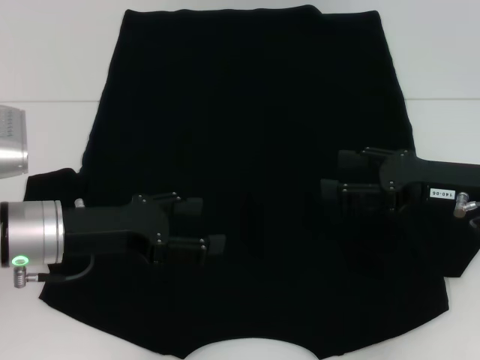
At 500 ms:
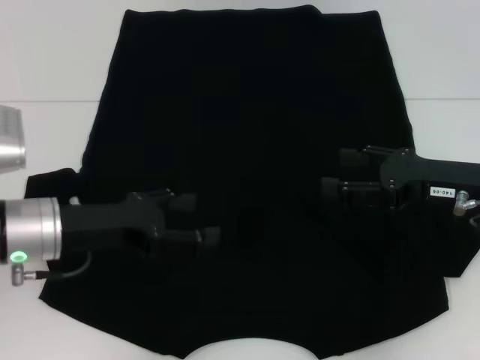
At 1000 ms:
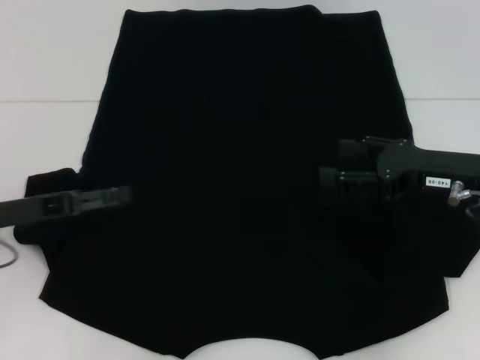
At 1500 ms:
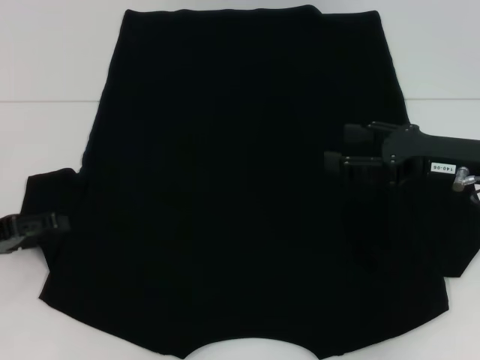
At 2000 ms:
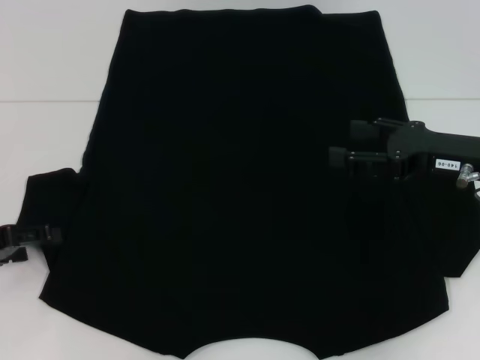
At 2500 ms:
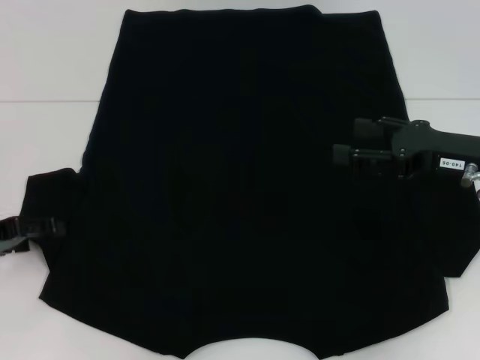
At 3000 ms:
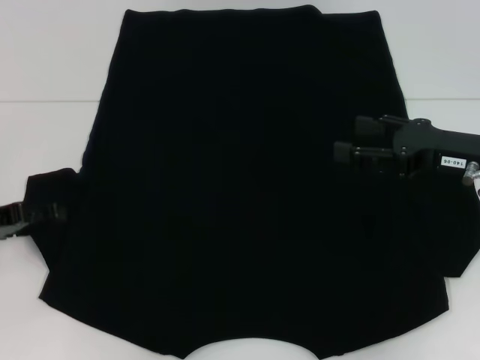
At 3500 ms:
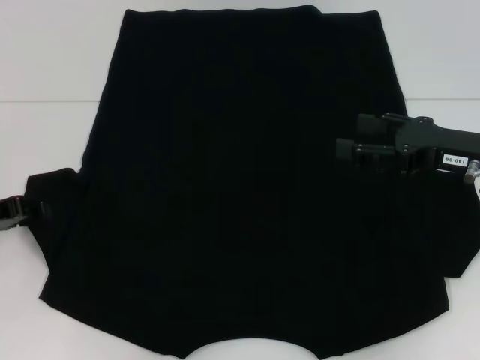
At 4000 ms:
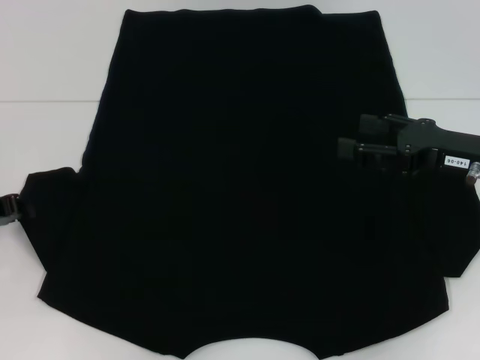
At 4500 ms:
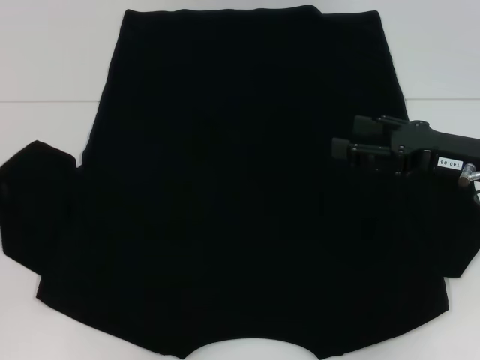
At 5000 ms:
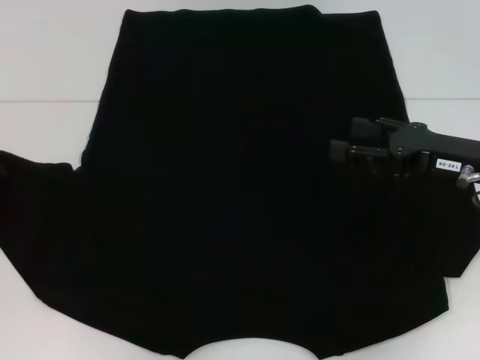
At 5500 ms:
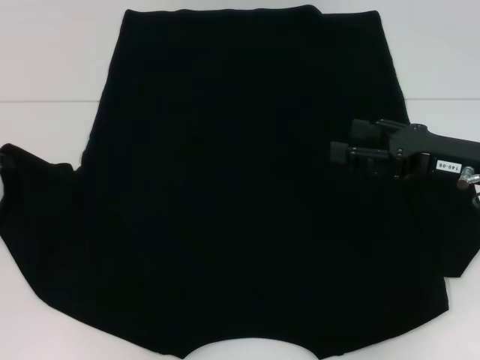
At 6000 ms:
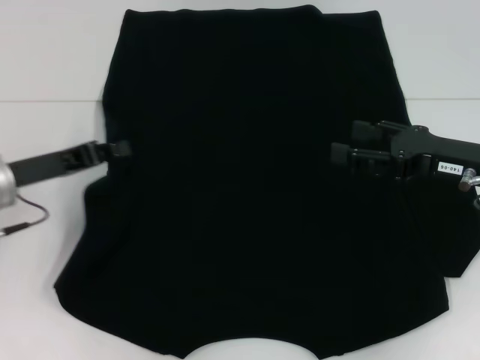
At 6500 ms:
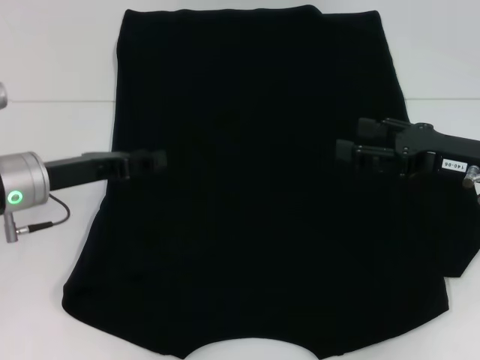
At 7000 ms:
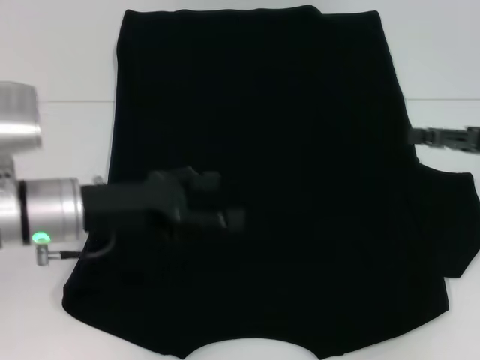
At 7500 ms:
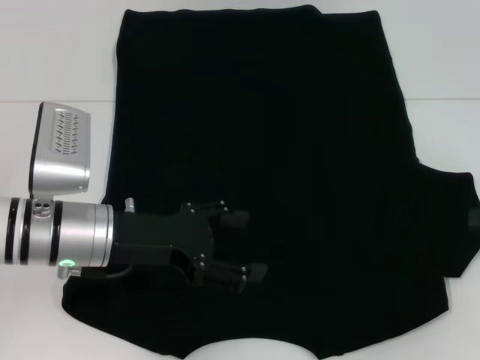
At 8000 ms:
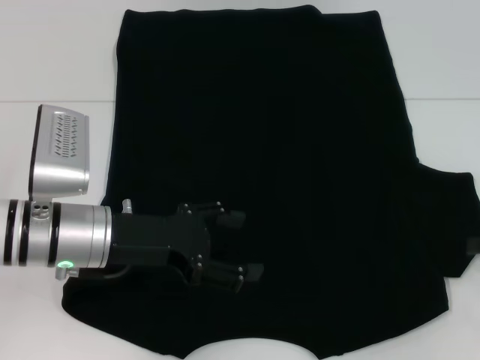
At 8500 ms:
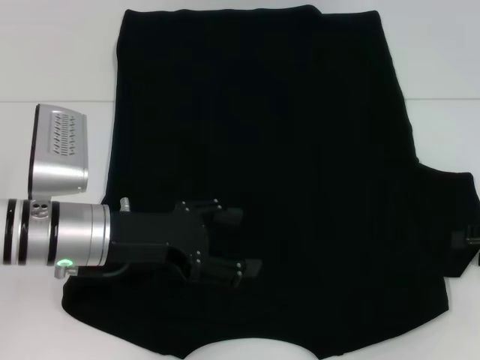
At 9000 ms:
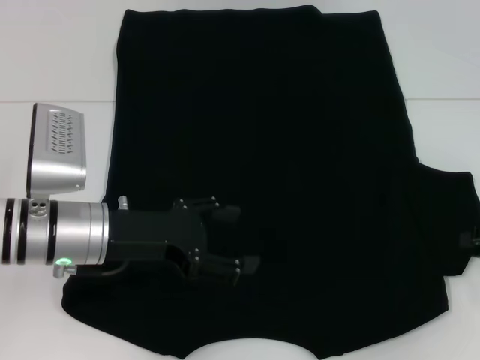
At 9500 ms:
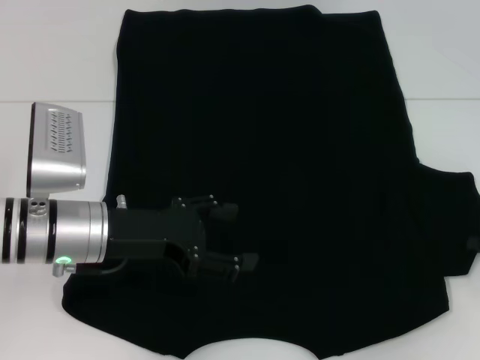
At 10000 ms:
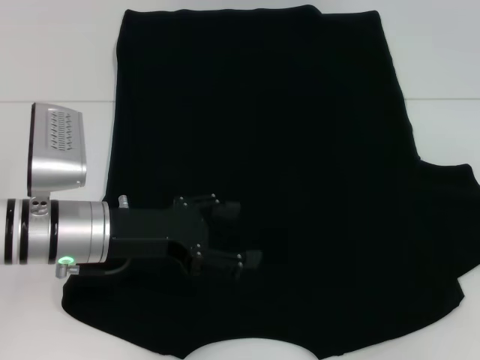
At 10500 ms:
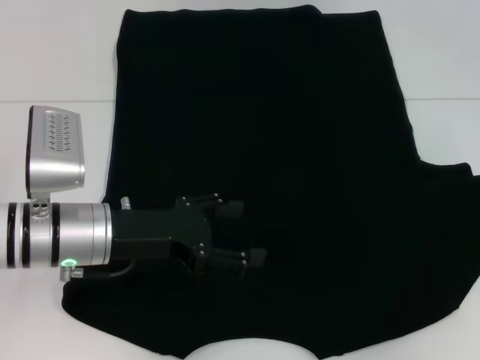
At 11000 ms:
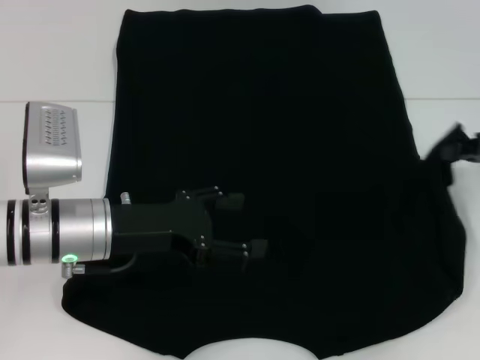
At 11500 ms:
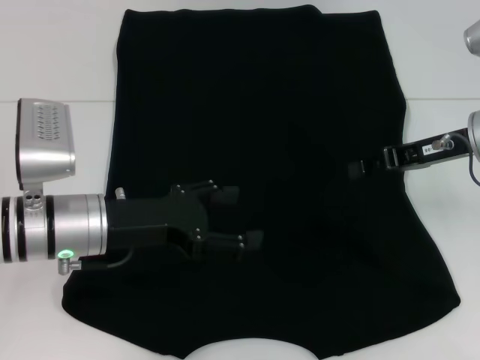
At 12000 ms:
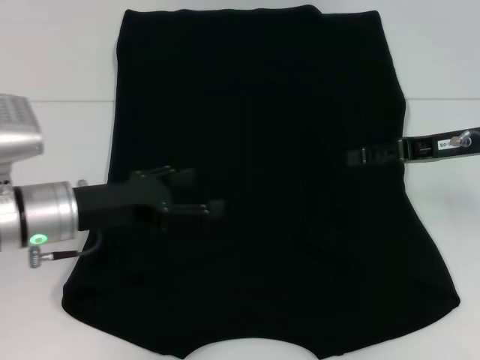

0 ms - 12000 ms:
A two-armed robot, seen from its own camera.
Step, 0 ms - 6500 ms: Fold the bottom left sleeve with your left hand.
Step, 7000 ms - 11500 ms: Fold the bottom right sleeve with your right hand.
0 ms - 2000 ms: The left gripper travels to the left by about 15 cm.
2000 ms - 4000 ms: The left gripper closes.
4000 ms - 6000 ms: The left gripper travels to the right by roughly 5 cm.
6000 ms - 8000 ms: The two grippers go roughly 10 cm to the right. The left gripper opens.
8000 ms - 10000 ms: The right gripper closes.
10000 ms - 12000 ms: The right gripper travels to the left and forward by some 15 cm, and opens up.

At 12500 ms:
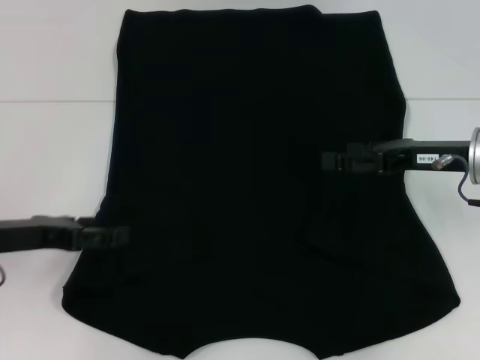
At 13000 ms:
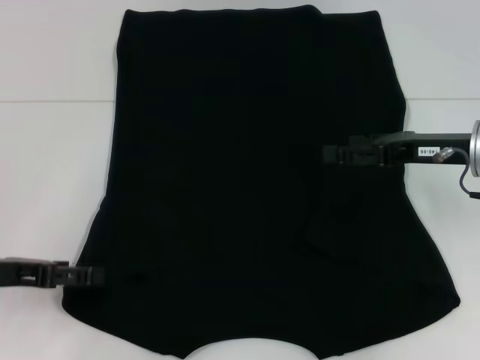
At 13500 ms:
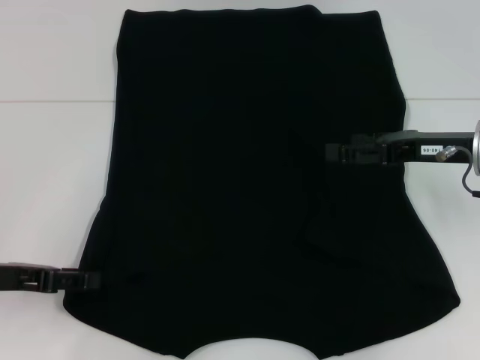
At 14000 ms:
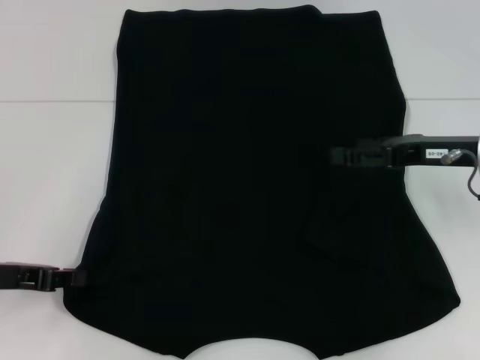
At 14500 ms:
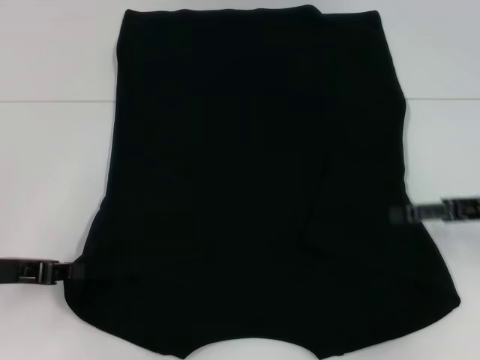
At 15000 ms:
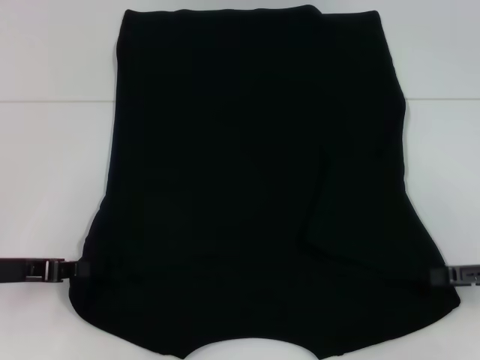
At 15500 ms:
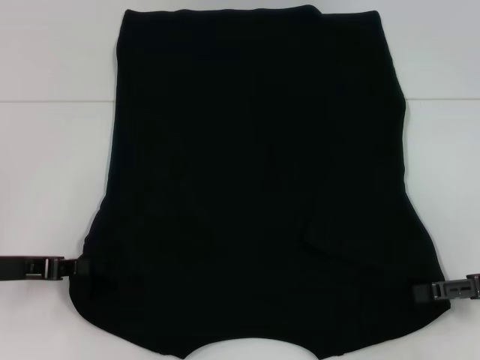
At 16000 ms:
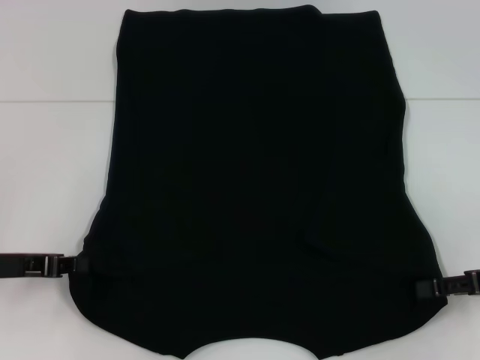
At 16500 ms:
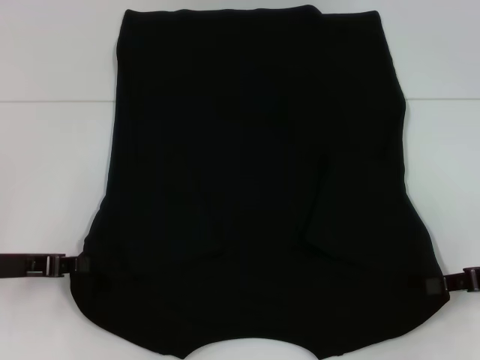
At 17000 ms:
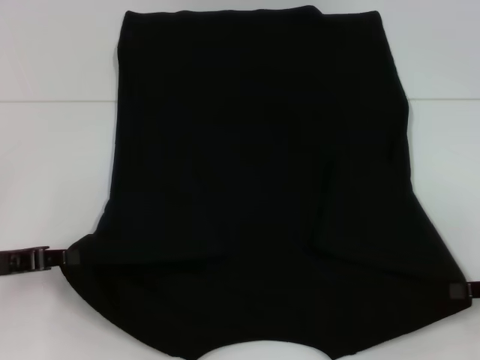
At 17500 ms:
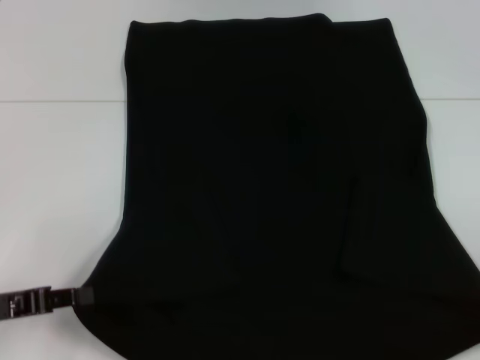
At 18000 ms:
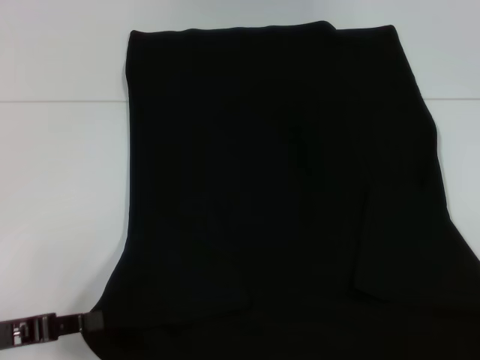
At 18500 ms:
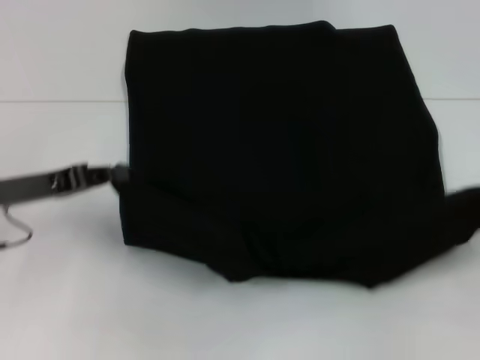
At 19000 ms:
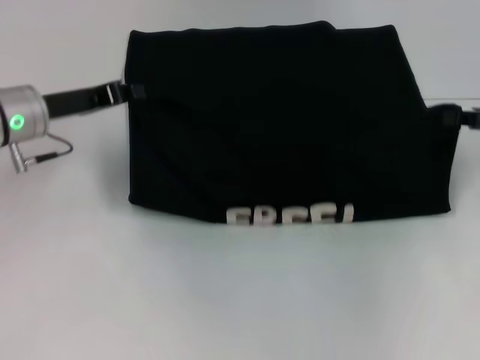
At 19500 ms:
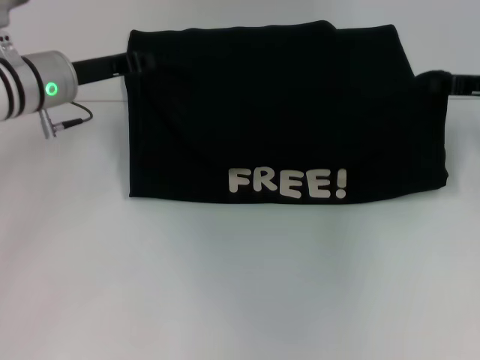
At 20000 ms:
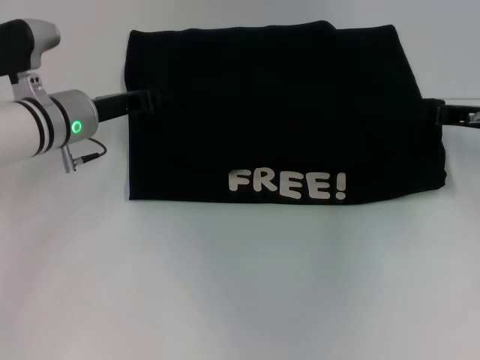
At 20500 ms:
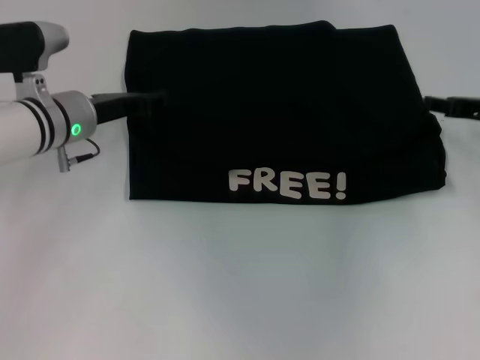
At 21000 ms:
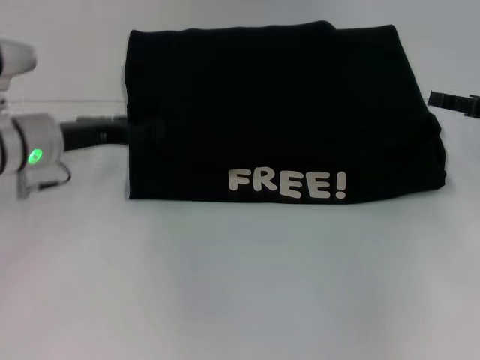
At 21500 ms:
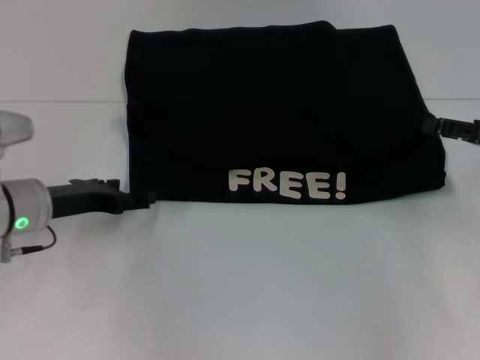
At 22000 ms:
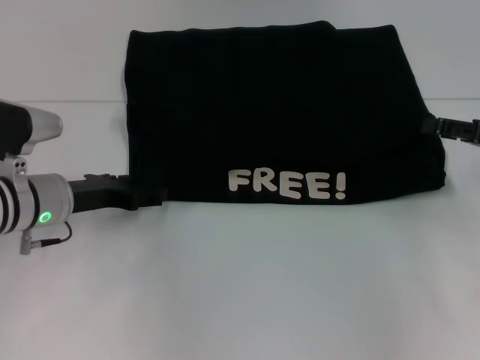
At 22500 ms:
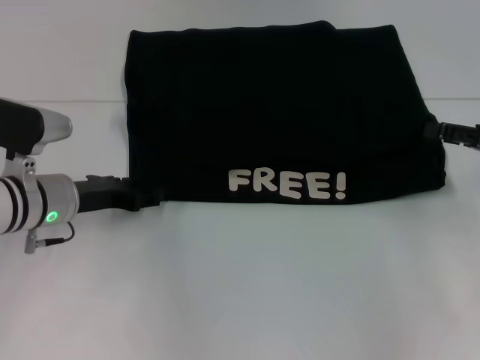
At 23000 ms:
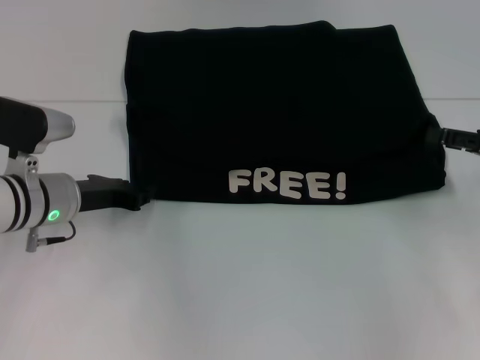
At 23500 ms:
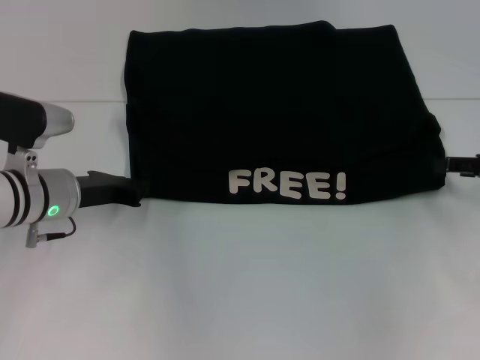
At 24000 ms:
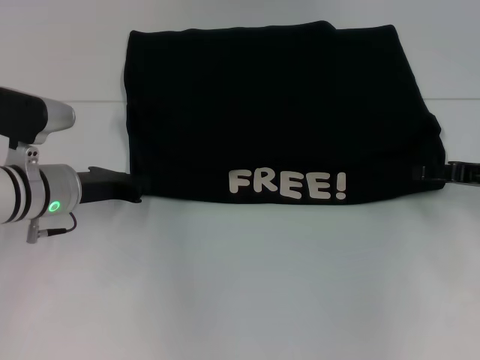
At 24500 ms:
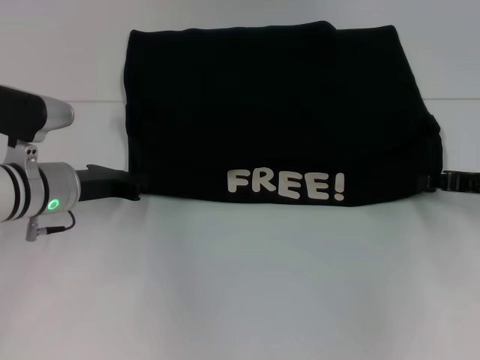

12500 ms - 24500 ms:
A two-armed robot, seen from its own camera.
Step, 12500 ms - 14000 ms: Grab the bottom left corner with your left hand.
Step, 14500 ms - 17000 ms: Grab the bottom right corner with your right hand.
Step, 17500 ms - 20500 ms: Fold the clothes with your left hand.
Step, 17500 ms - 20500 ms: Fold the clothes with your right hand.
12500 ms - 14500 ms: The right gripper travels to the right by about 5 cm, while the left gripper closes.
14500 ms - 16500 ms: The right gripper shifts by some 5 cm, and closes its fingers.
16500 ms - 18500 ms: The left gripper travels backward and back again, some 10 cm each way. Meanwhile the right gripper shifts some 5 cm to the right, and moves about 10 cm backward and comes back.
18500 ms - 20500 ms: The left gripper travels forward and to the right by about 15 cm, while the right gripper moves forward and to the left, some 15 cm.
20500 ms - 22500 ms: The two grippers go roughly 5 cm backward. The right gripper opens, while the left gripper opens up.
22500 ms - 24500 ms: The right gripper closes up. Meanwhile the left gripper closes.

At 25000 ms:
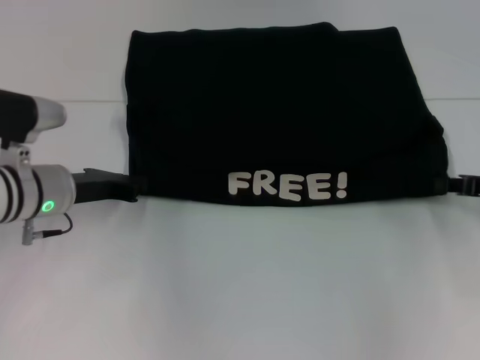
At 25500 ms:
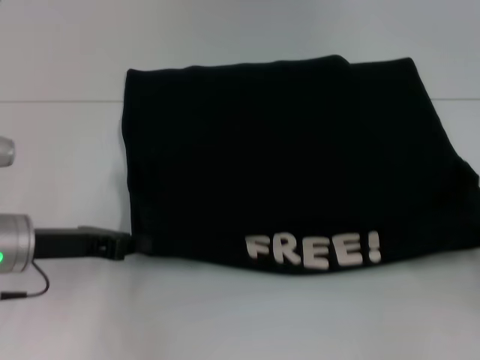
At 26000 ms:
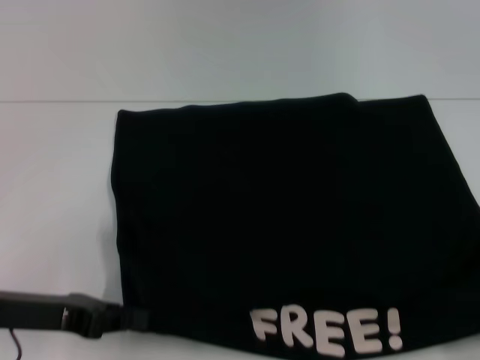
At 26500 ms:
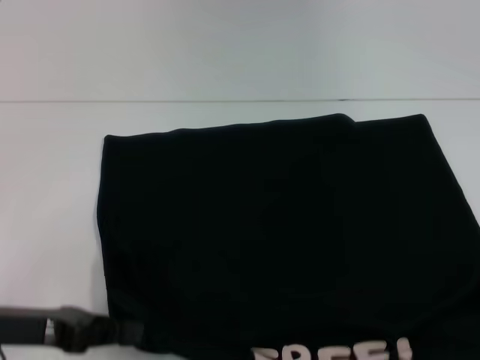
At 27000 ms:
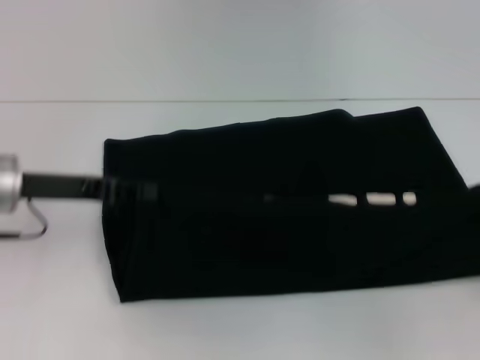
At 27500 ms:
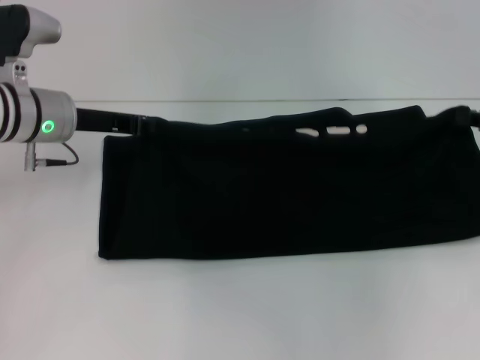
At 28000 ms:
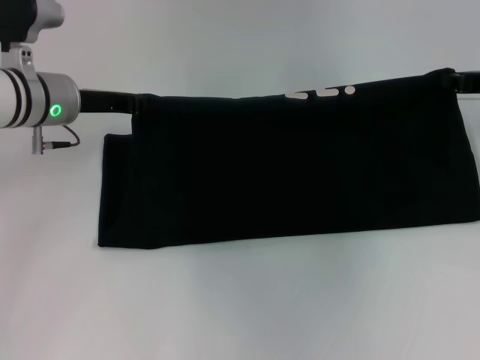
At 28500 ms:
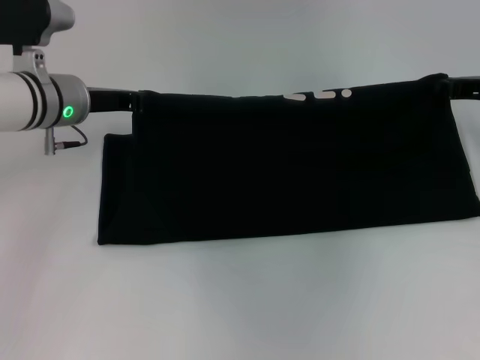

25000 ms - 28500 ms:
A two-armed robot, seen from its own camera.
25000 ms - 27000 ms: The left gripper travels upward by approximately 5 cm, and reaches approximately 15 cm backward, then returns, while the right gripper goes roughly 10 cm backward and to the right.
27000 ms - 28500 ms: The left gripper heads forward and to the right, covering some 10 cm. Meanwhile the right gripper is displaced forward and to the left by some 20 cm.
